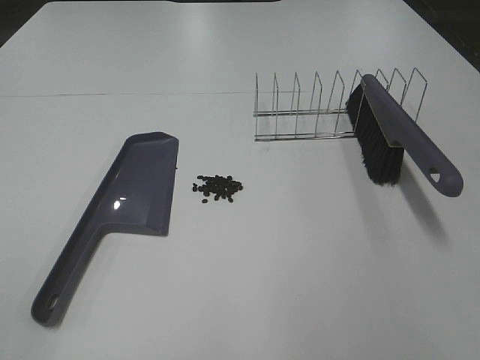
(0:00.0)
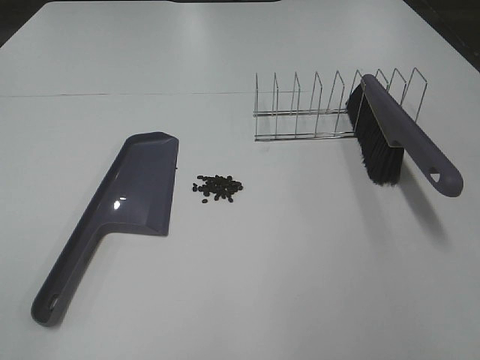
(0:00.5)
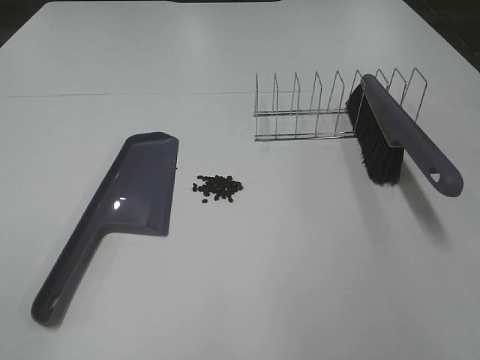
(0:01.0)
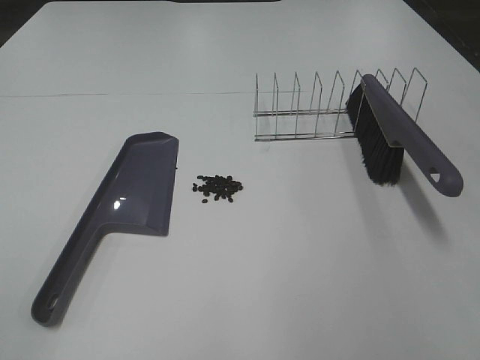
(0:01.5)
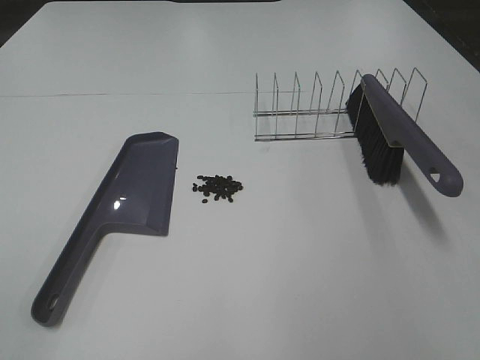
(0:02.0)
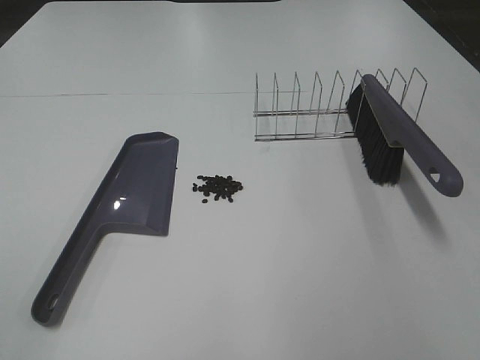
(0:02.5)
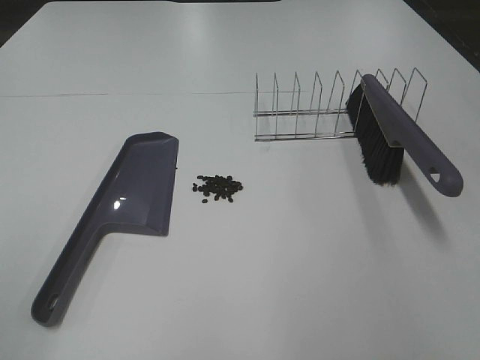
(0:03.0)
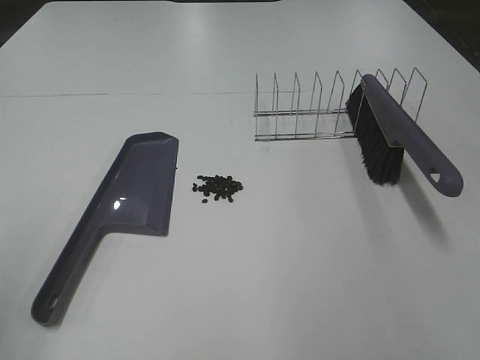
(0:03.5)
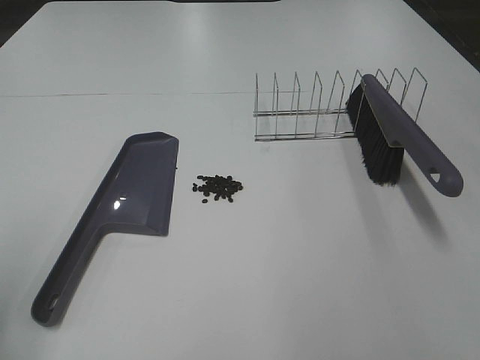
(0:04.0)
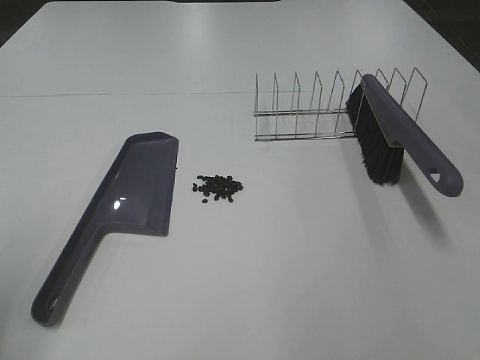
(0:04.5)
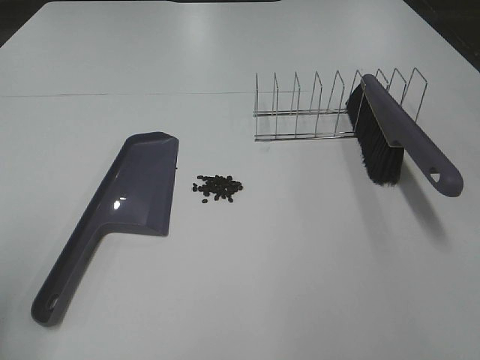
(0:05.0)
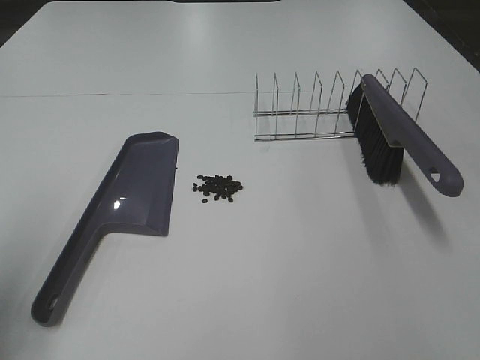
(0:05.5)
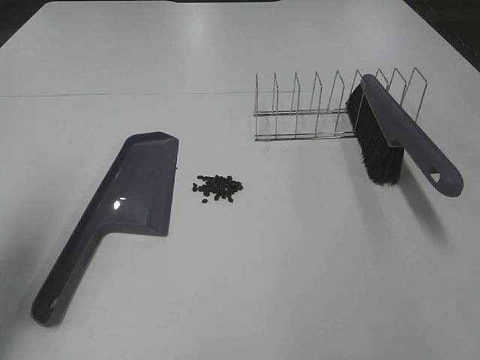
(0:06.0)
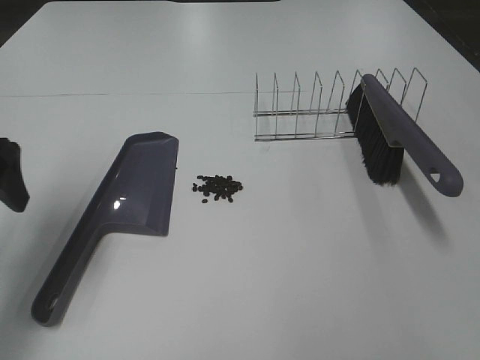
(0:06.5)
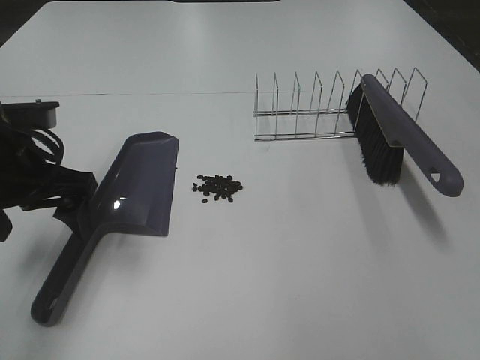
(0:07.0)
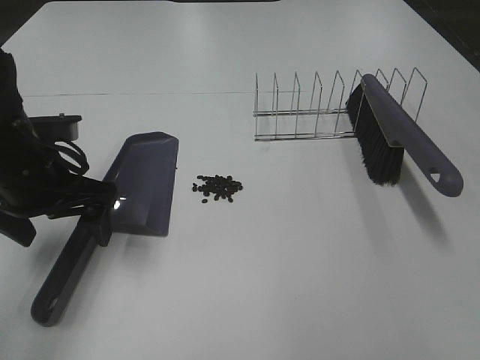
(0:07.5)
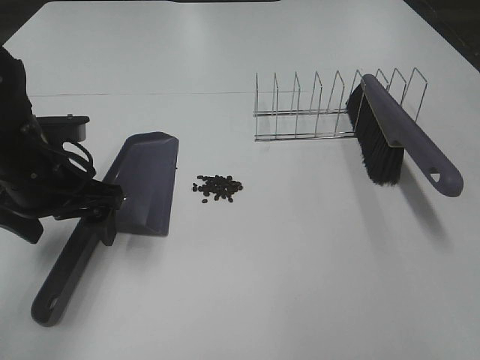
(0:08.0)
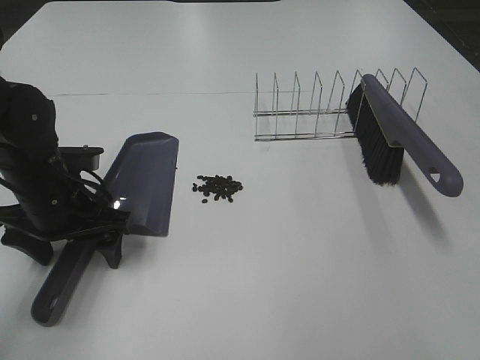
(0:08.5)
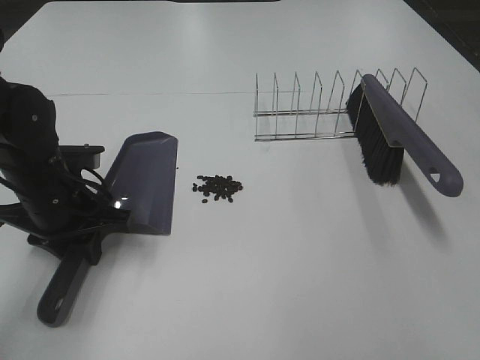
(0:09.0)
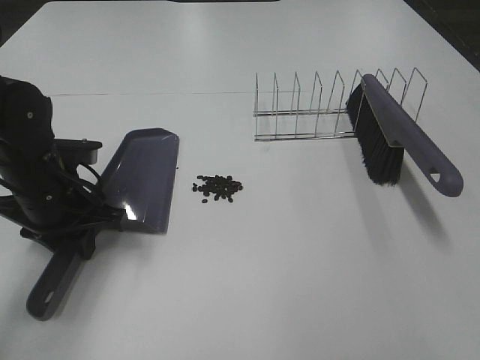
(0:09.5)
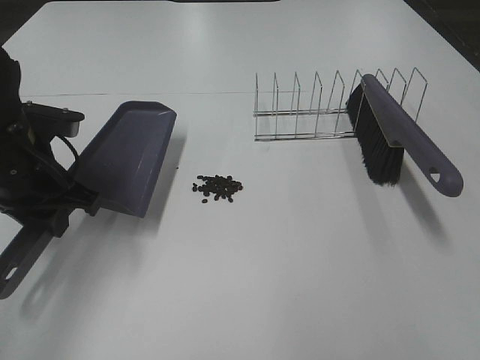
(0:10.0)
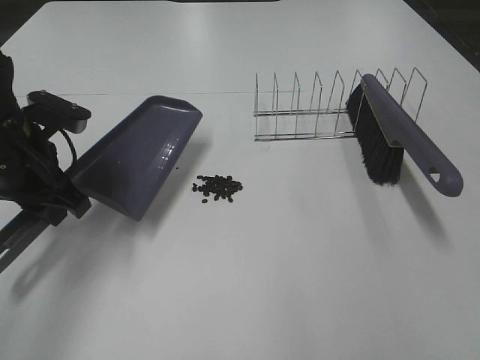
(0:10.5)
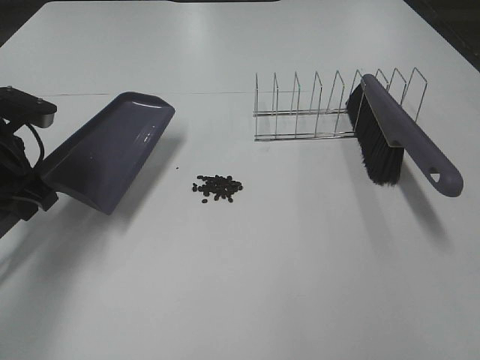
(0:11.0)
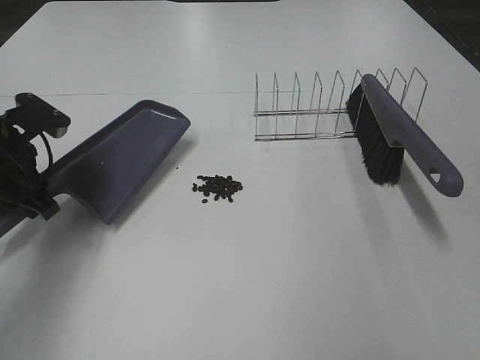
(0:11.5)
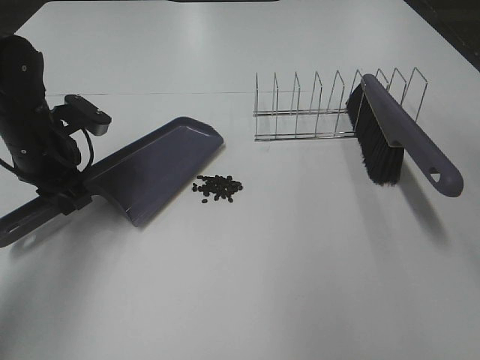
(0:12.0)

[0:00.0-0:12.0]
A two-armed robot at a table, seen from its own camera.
Task of the whole recording: Sweep Coffee Bean.
Step, 0:00.0 to 0:08.5: Left hand: grab the dustpan.
0:00.0 to 0:02.0: The two grippers keep their place.
0:04.0 to 0:06.0: The left gripper heads forward, covering some 10 cm.
0:06.0 to 0:08.0: The left gripper moves to the right, downward and forward, approximately 15 cm.
0:08.0 to 0:10.0: The left gripper closes up.
0:10.0 to 0:12.0: The right gripper heads forward and upward, covering roughly 25 cm. Meanwhile the left gripper moves forward, some 5 cm.

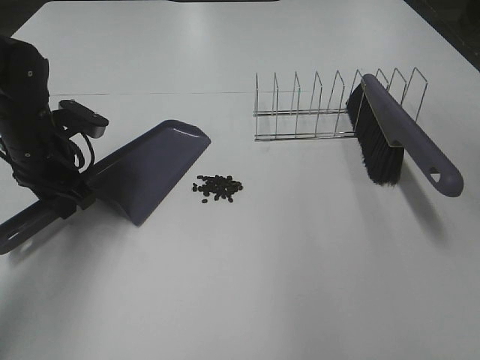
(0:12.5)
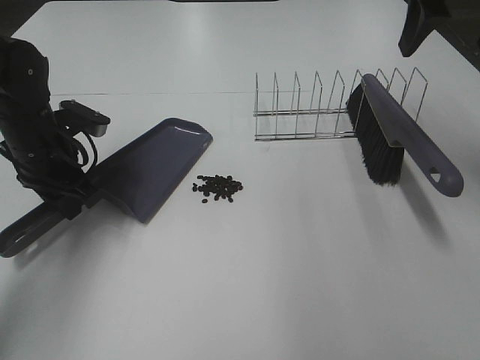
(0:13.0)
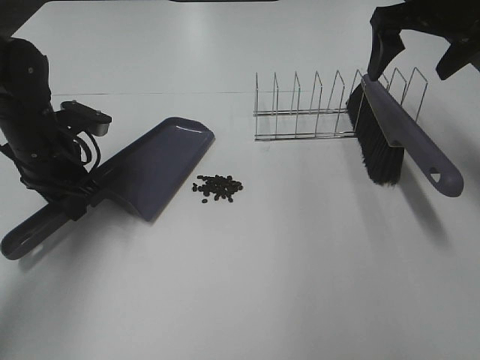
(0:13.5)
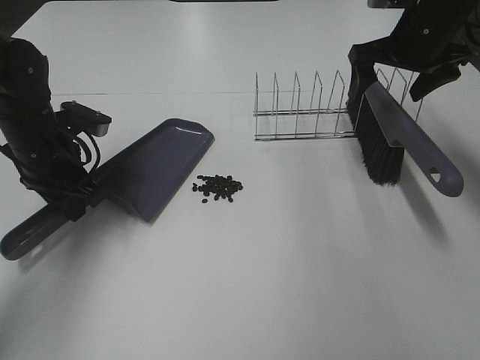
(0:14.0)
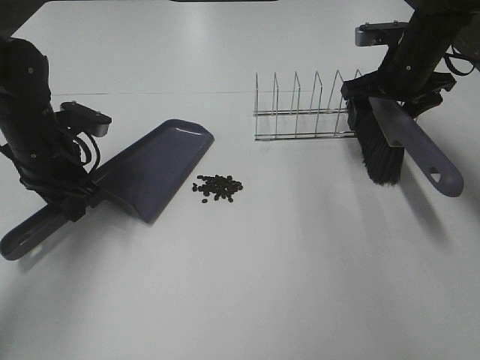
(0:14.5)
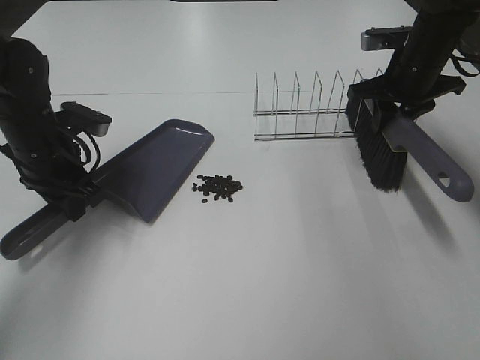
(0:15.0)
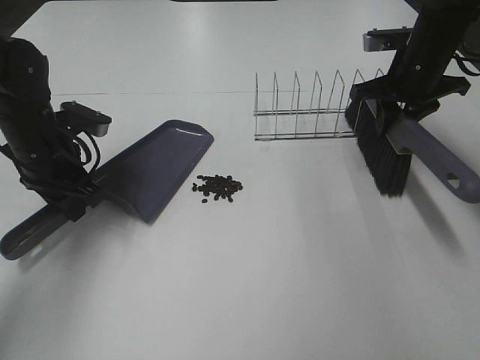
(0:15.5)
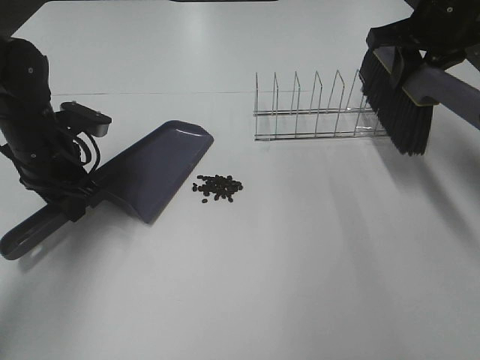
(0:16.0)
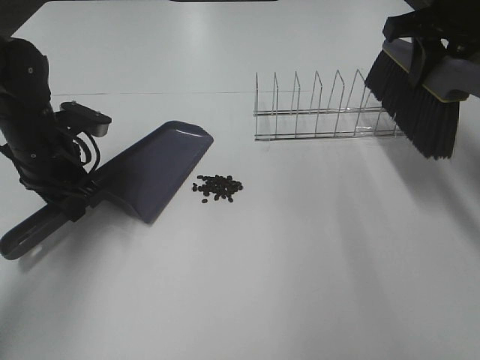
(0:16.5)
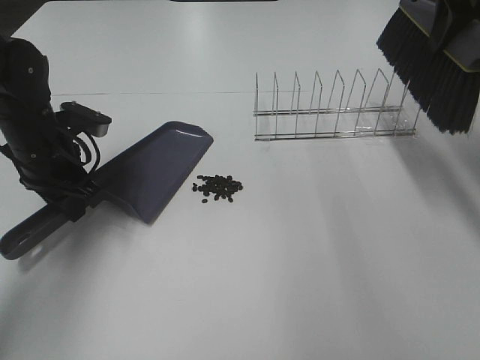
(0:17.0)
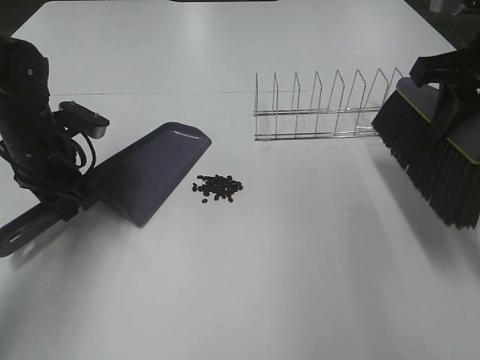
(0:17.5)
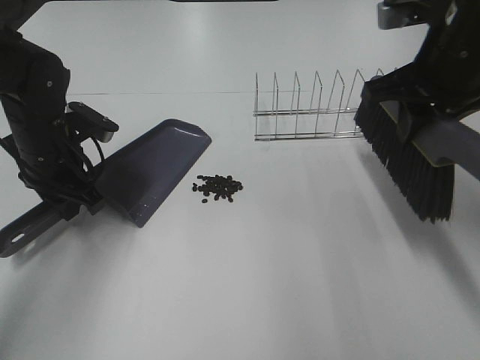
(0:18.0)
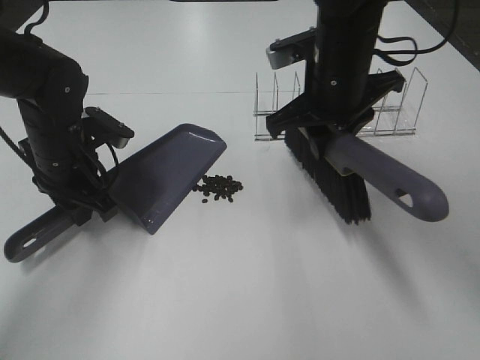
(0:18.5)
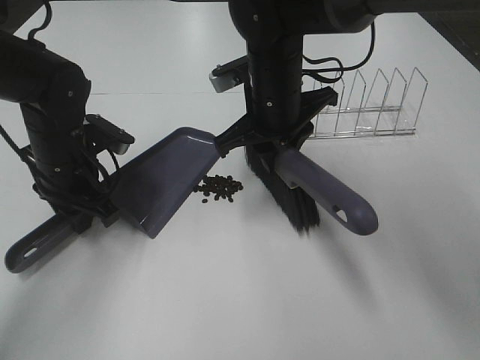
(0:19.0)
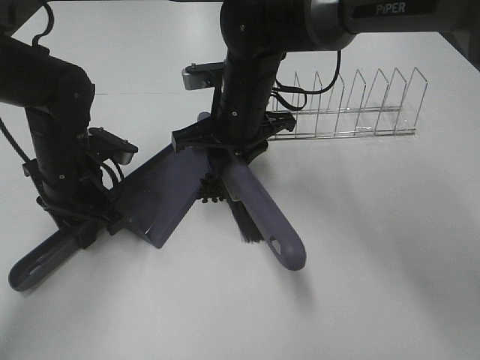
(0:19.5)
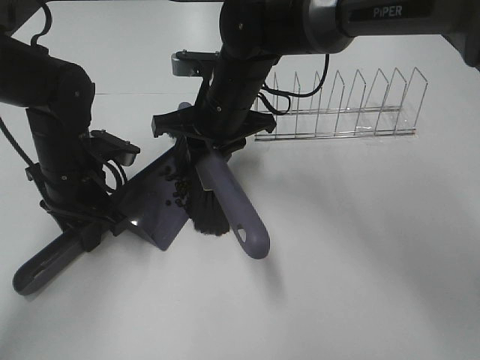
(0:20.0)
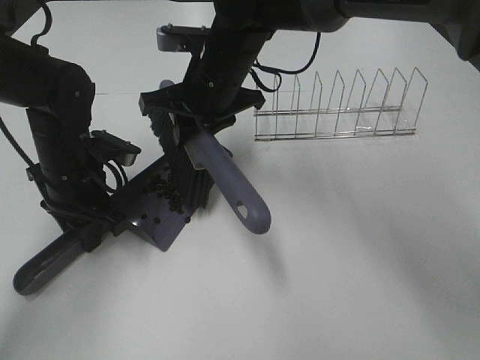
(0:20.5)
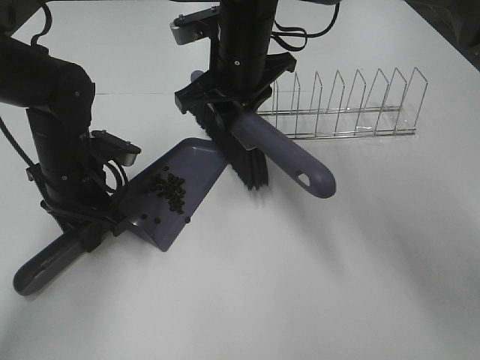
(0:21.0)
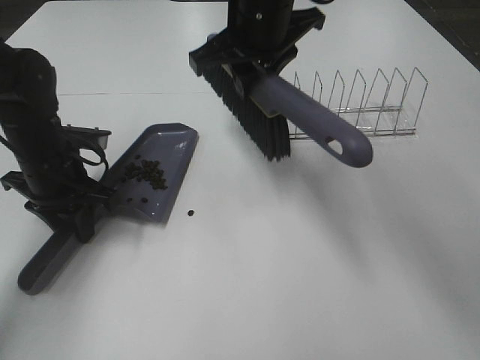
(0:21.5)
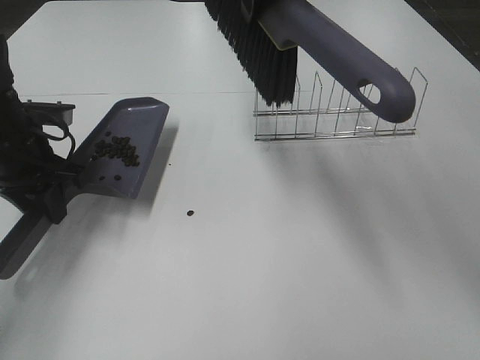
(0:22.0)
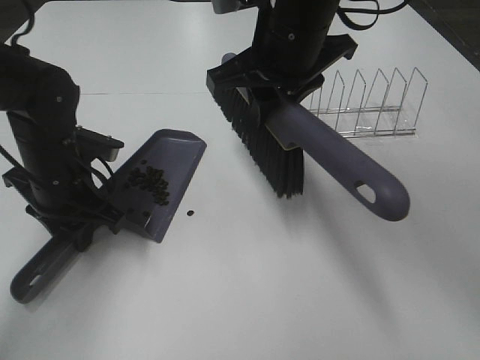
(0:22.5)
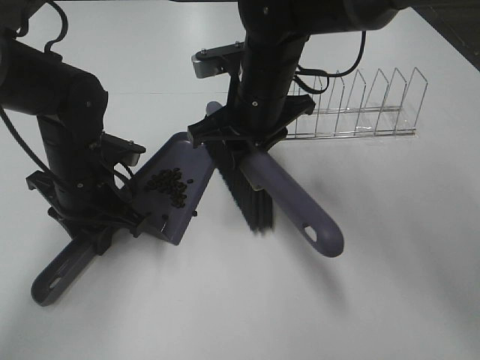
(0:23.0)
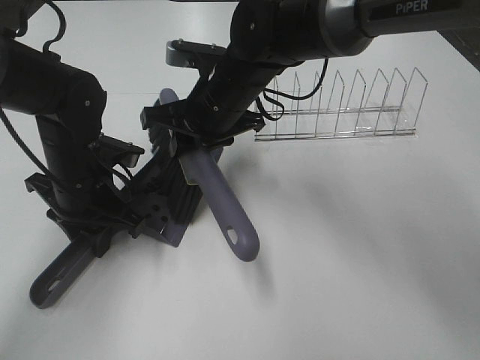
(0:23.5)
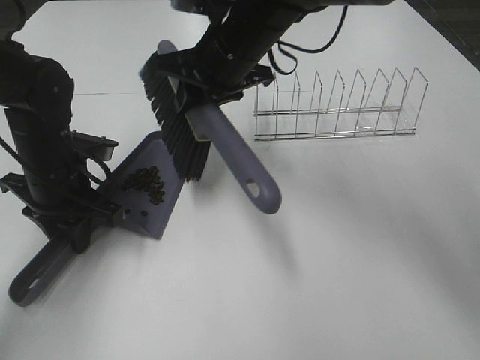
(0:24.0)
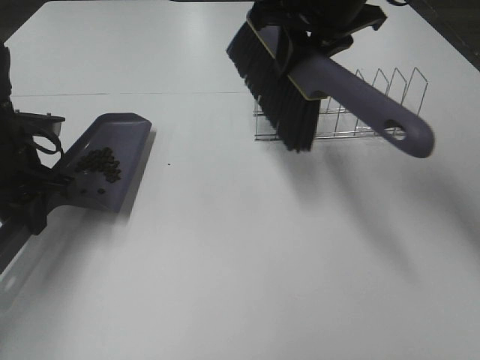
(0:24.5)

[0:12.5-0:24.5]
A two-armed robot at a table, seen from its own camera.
Task of the whole recording: Sweep Coffee Bean.
Step, 0:12.5 to 0:15.0: Right hand:grab the broom.
Step, 0:15.5 to 0:23.5: Right hand:sweep the coffee beans into the dustpan.
0:12.5 to 0:14.5: The right gripper travels downward and forward by about 25 cm.
0:14.5 to 0:16.5: The right gripper moves upward and backward, about 15 cm, and closes its fingers.
0:16.5 to 0:18.5: The right gripper moves to the left and downward, roughly 15 cm.
0:18.5 to 0:20.5: The right gripper heads to the left, covering about 10 cm.
0:20.5 to 0:22.5: The right gripper heads upward, to the right and backward, covering some 10 cm.
0:22.5 to 0:24.5: The right gripper travels to the right by approximately 5 cm, and reaches about 10 cm downward, then returns. Meanwhile the left gripper shifts some 5 cm to the left.

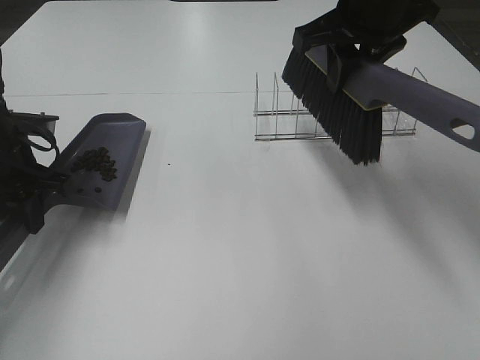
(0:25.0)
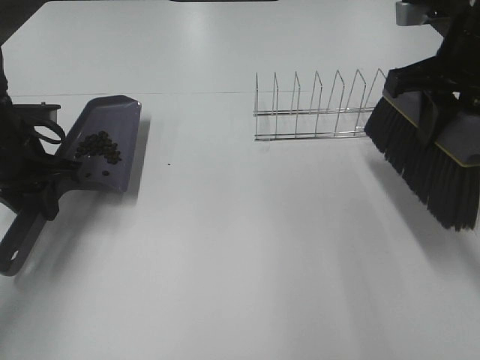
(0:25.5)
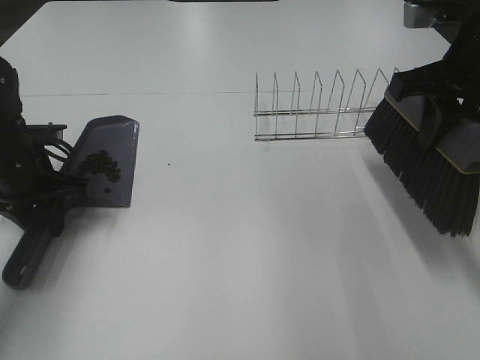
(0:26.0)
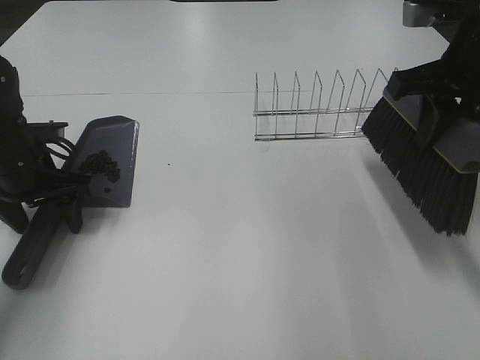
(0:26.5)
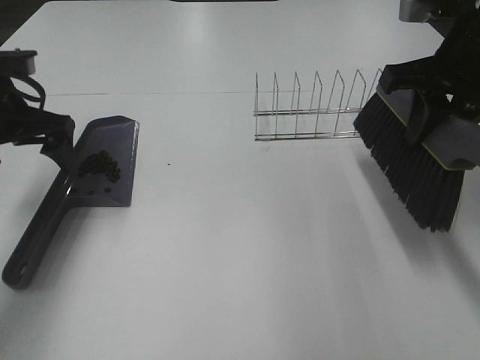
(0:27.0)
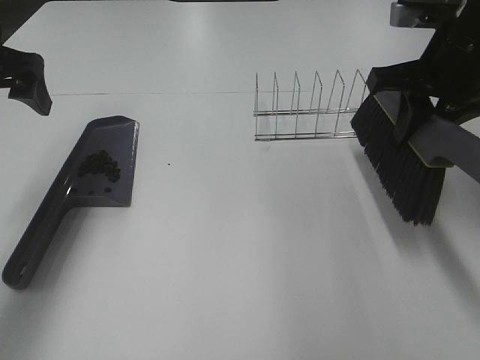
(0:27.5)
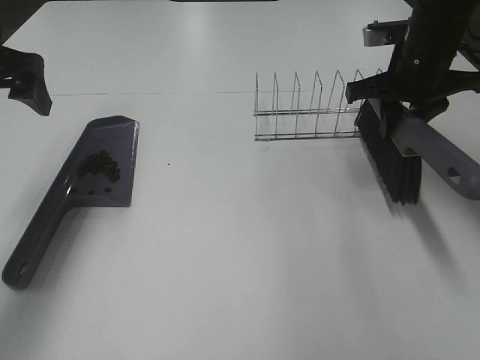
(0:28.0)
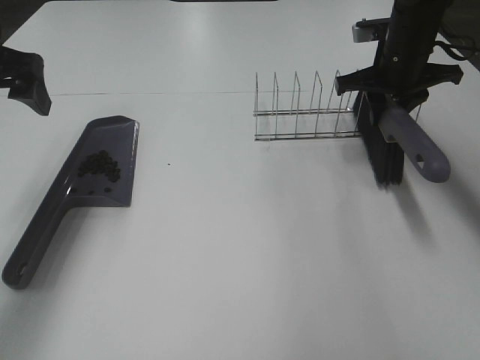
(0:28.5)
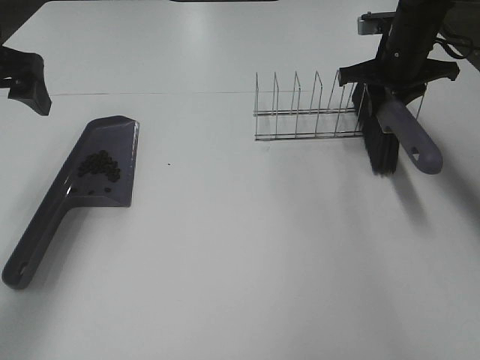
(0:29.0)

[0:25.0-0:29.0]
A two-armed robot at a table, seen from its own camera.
Task of the whole recording: Sweep Coffee Bean.
Step, 0:25.0 to 0:26.5: Left hand:place the dustpan on the table.
0:25.0 to 0:27.0: The right gripper moves to the right and backward, roughly 10 cm. Meanwhile the left gripper goes roughly 5 cm upward, and opens its fingers.
0:27.0 to 0:29.0: The right gripper heads forward and downward, covering some 20 cm. Meanwhile the left gripper is displaced upward by roughly 5 cm.
